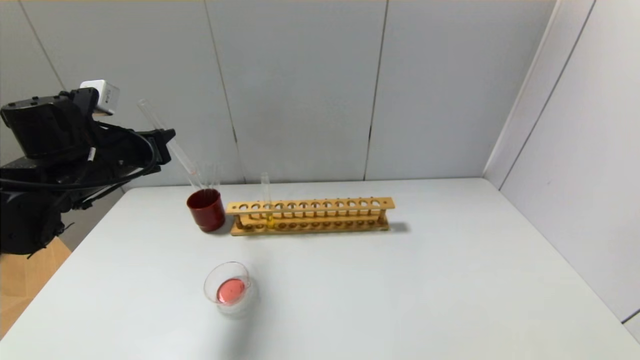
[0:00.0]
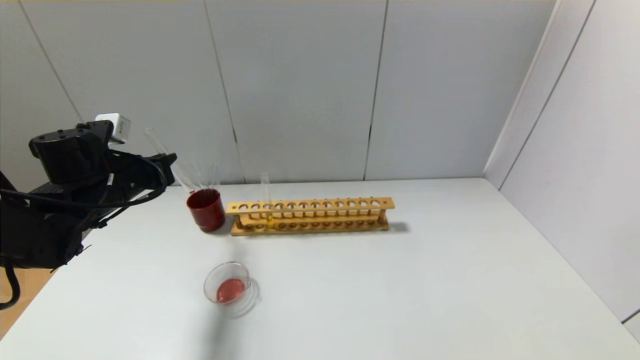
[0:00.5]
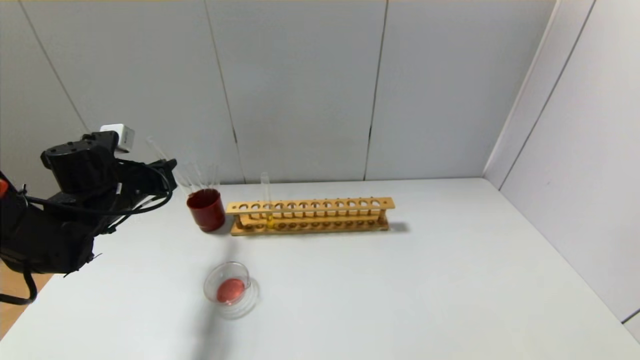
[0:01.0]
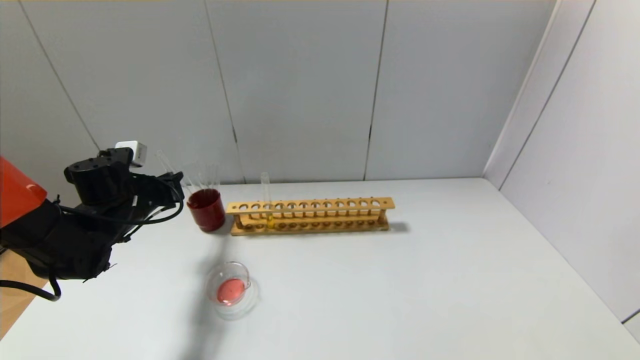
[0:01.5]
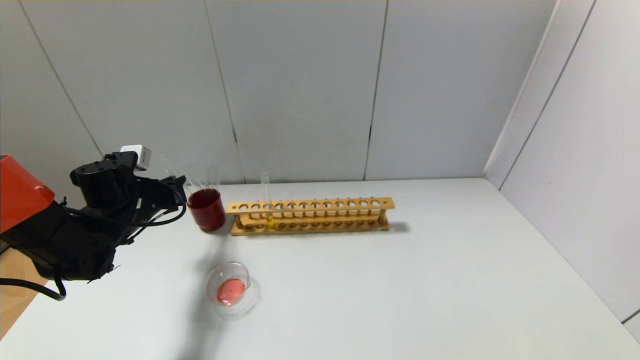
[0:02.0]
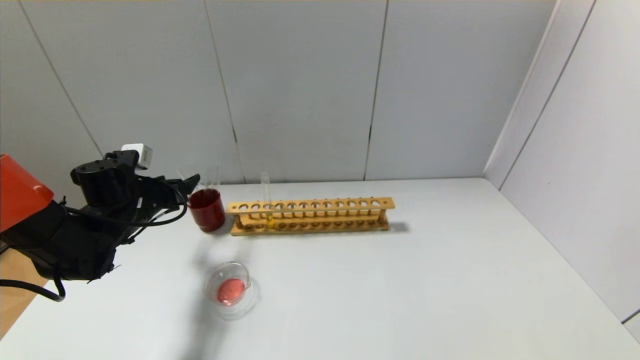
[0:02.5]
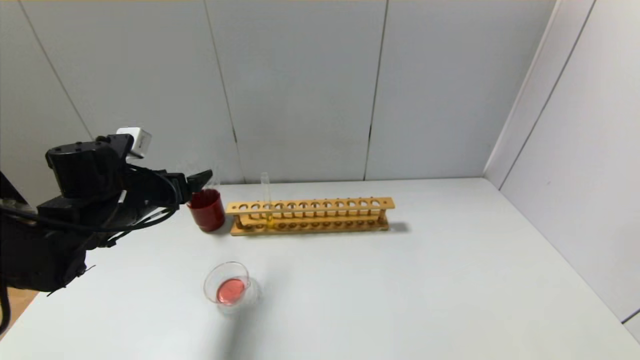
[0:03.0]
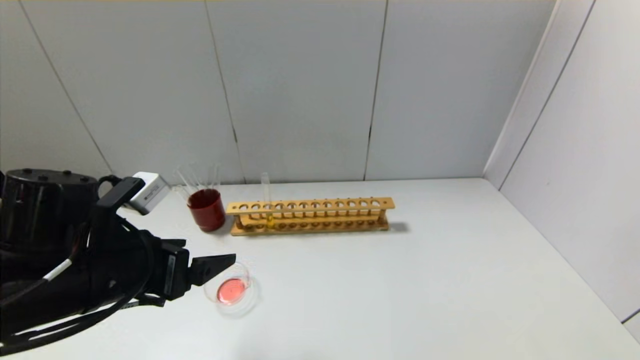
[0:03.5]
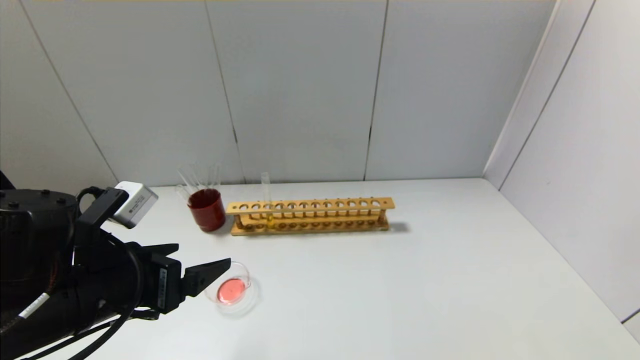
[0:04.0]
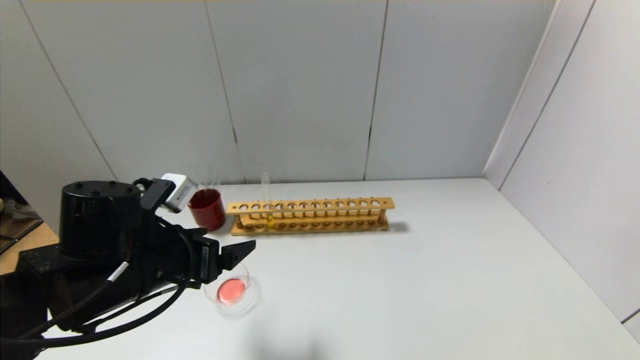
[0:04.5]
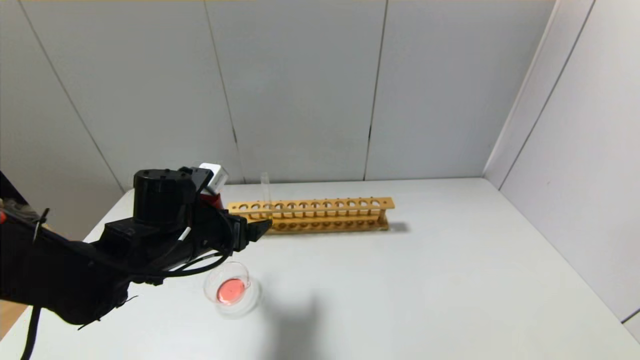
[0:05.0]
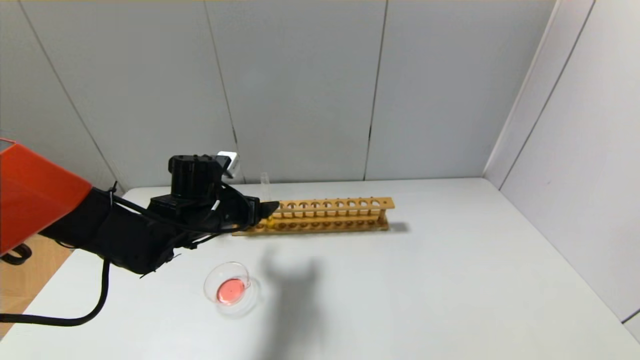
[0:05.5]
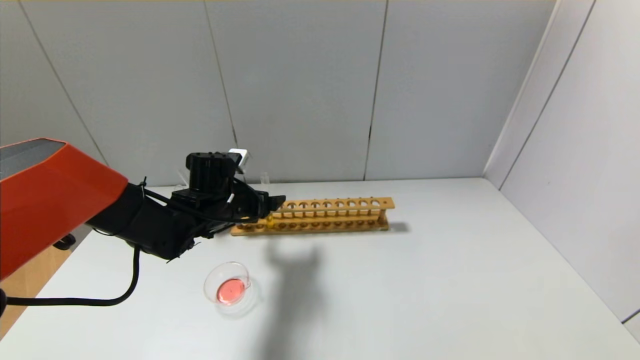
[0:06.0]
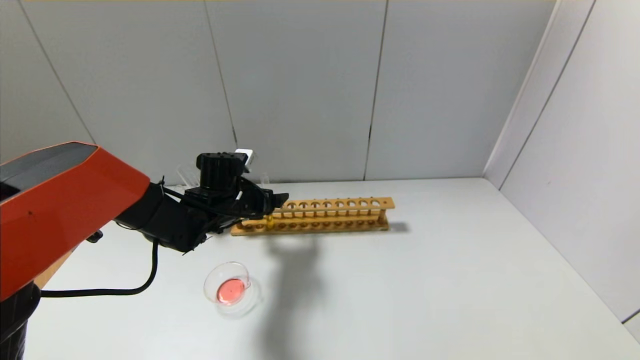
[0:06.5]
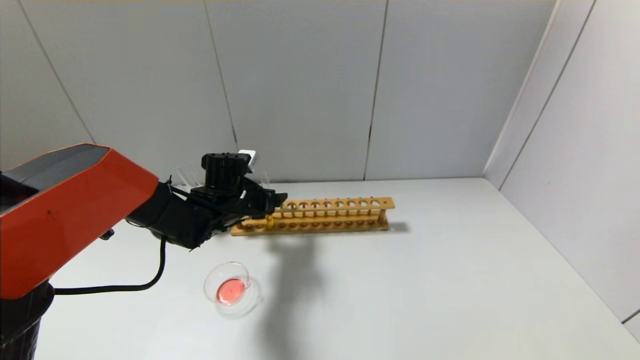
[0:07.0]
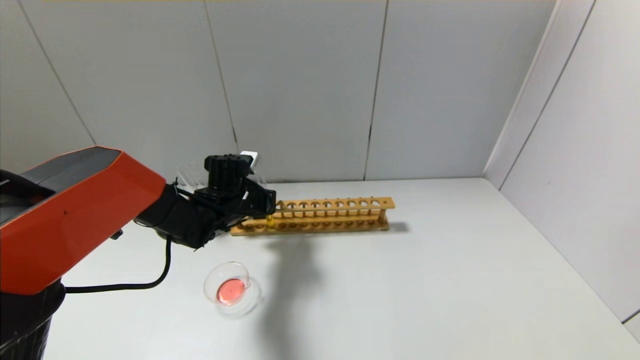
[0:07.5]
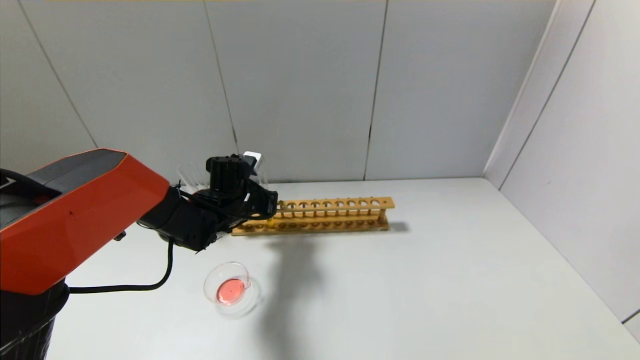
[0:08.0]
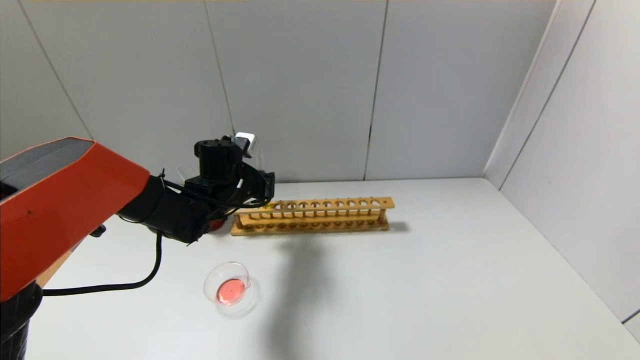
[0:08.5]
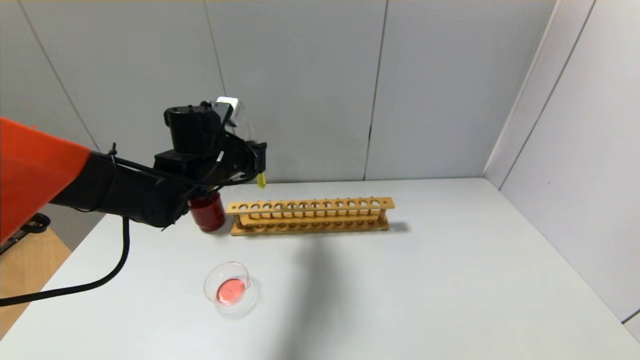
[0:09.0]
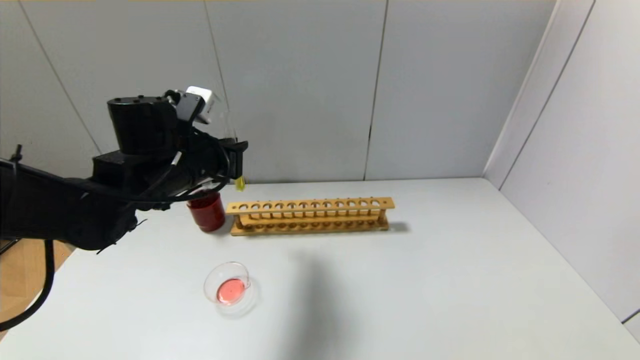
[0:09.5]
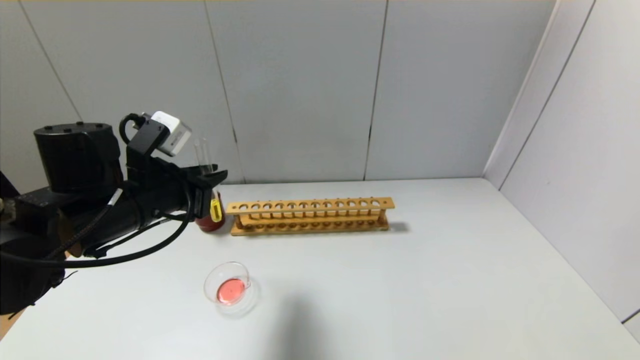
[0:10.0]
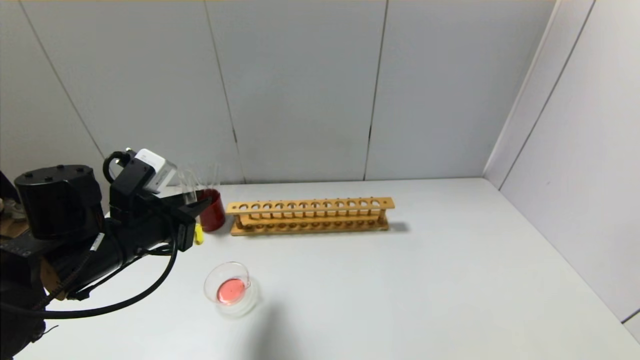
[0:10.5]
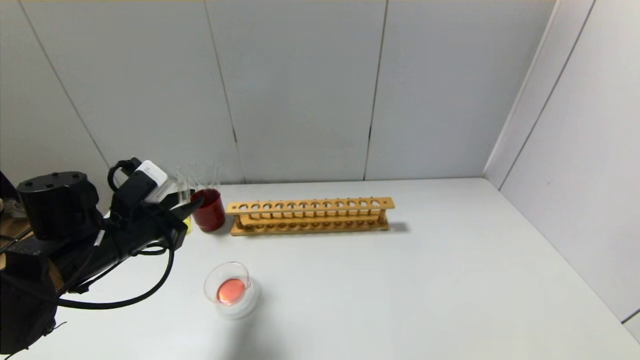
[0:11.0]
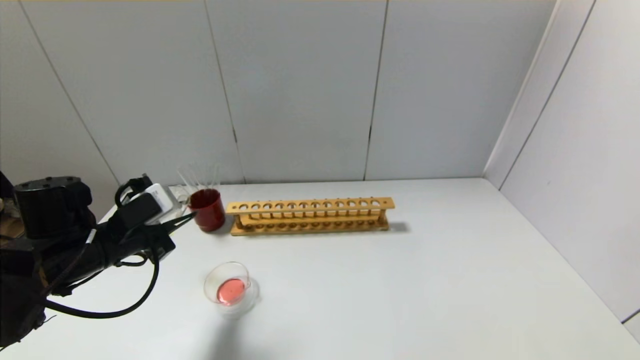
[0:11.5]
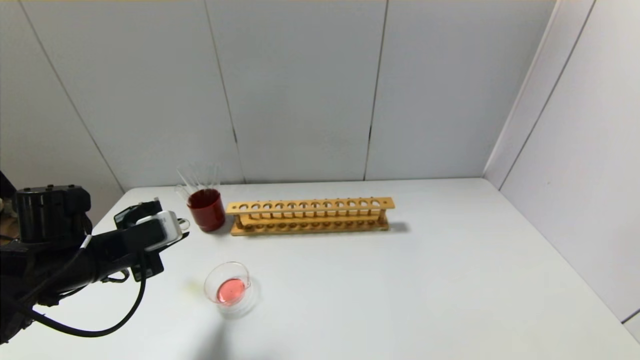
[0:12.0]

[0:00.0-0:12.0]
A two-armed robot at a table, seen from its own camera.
Step, 0.0 to 2.0 s: Place the test tube into the brown cup with the left gripper.
Step, 2.5 to 7.5 s: Grasp the yellow reagent with the left gripper.
0.0 to 2.0 s: The left gripper is displaced downward by approximately 10 cm.
2.0 to 4.0 s: The left gripper heads backward and to the right, covering about 20 cm, and opens up.
4.0 to 6.0 s: The left gripper travels forward by about 20 cm.
6.0 to 8.0 s: The left gripper closes up.
8.0 to 10.0 s: The left gripper travels backward, upward and to the left by about 20 cm.
10.0 to 12.0 s: The left gripper shifts some 10 cm downward and to the left.

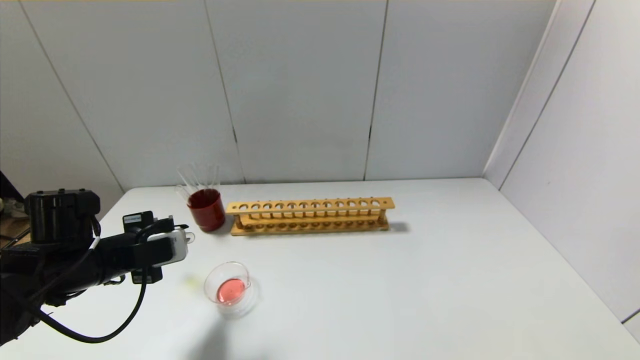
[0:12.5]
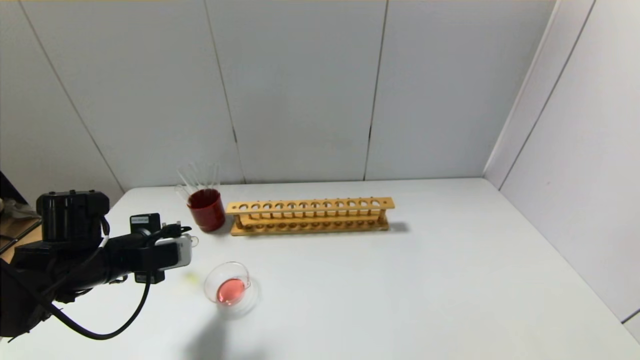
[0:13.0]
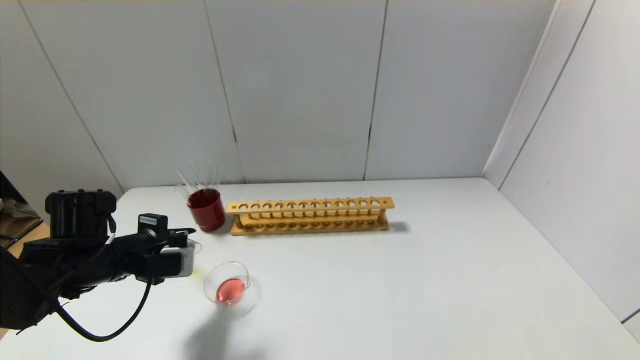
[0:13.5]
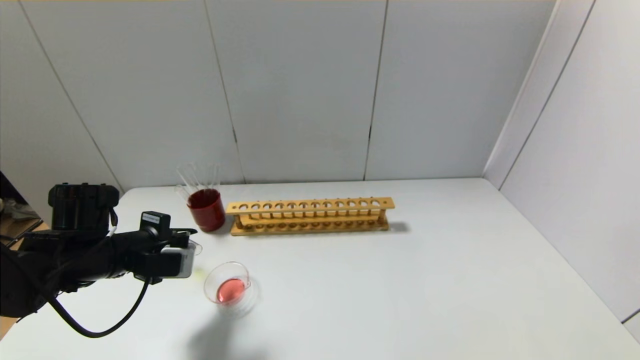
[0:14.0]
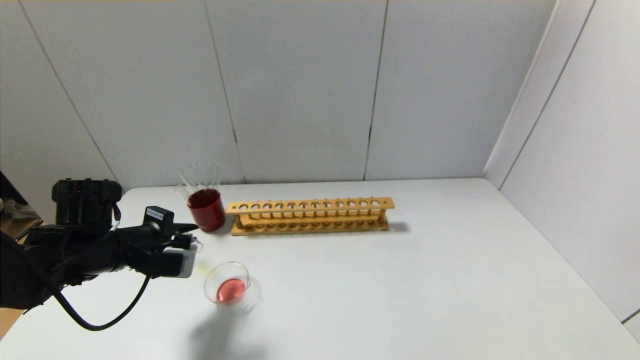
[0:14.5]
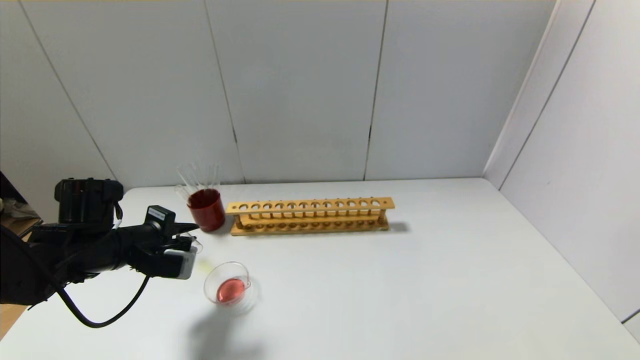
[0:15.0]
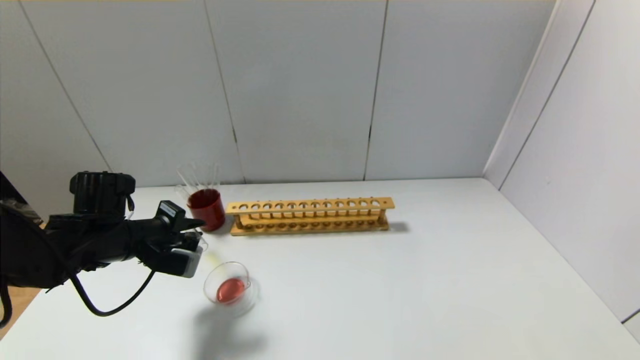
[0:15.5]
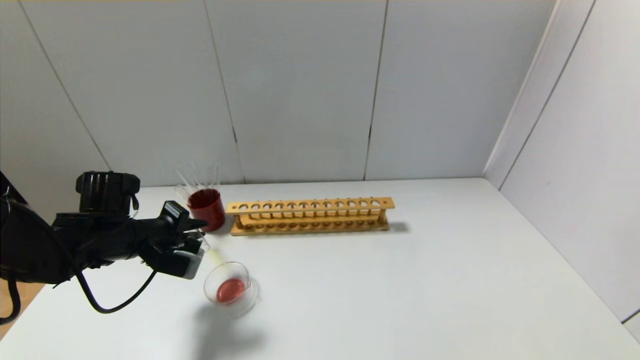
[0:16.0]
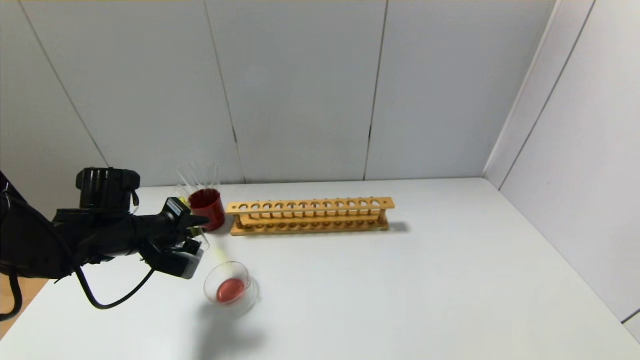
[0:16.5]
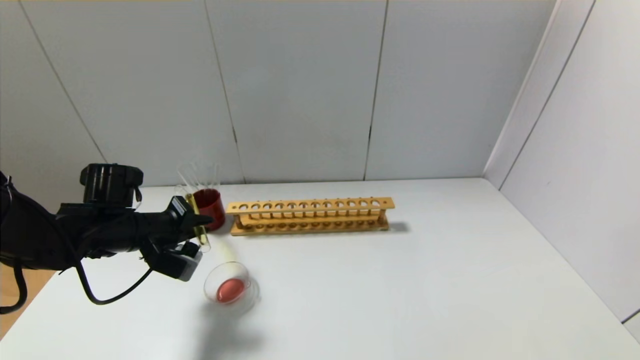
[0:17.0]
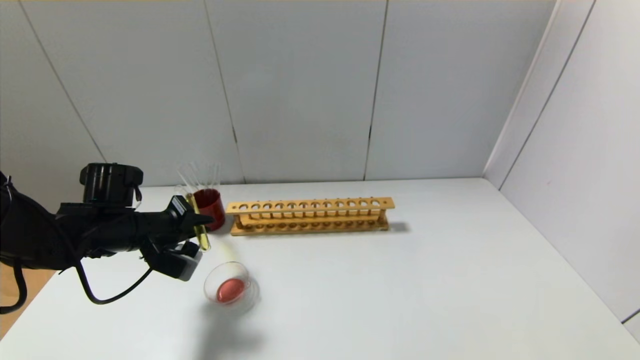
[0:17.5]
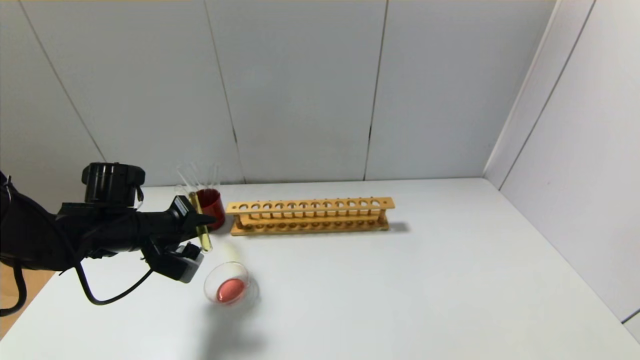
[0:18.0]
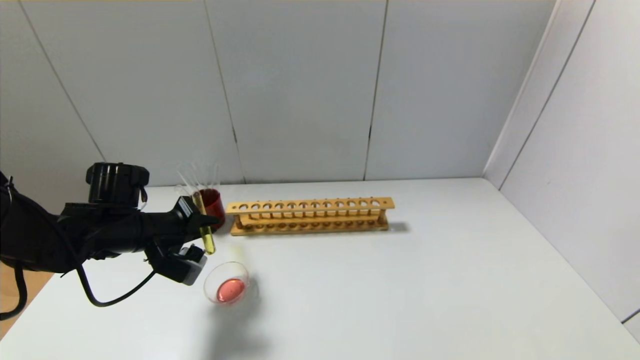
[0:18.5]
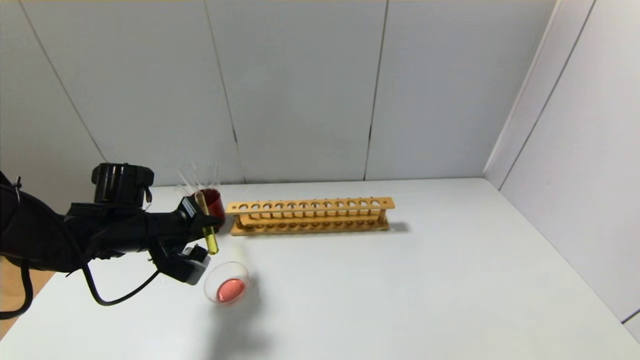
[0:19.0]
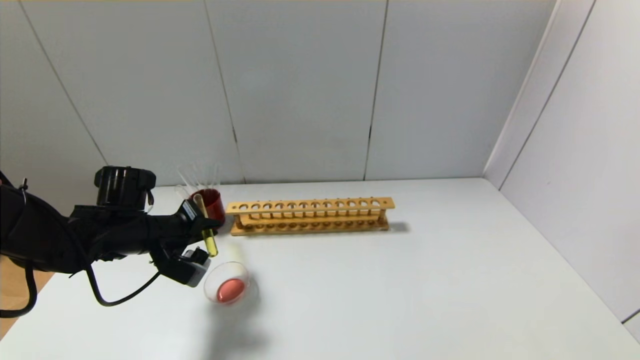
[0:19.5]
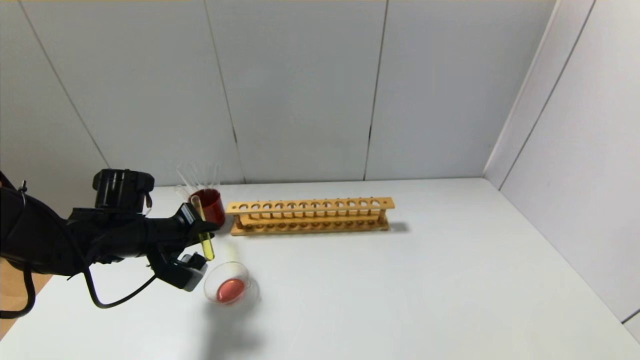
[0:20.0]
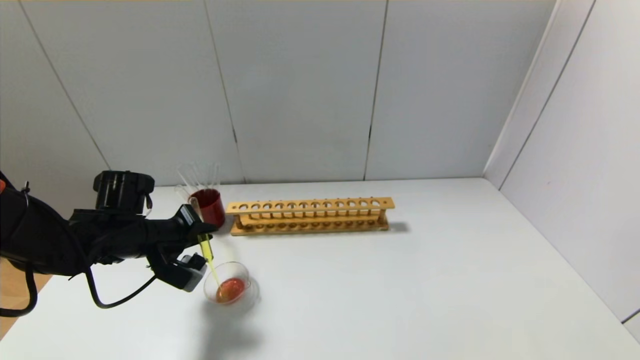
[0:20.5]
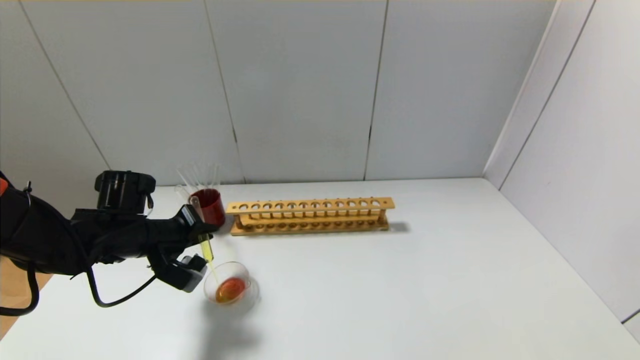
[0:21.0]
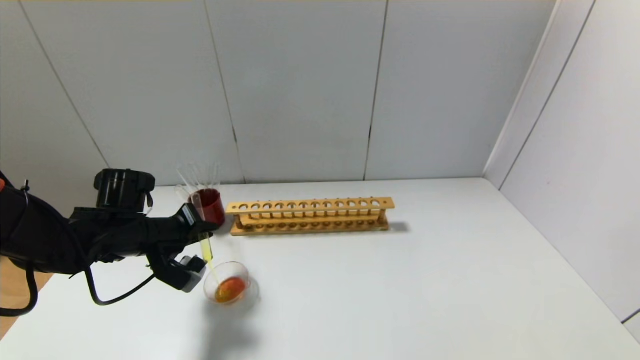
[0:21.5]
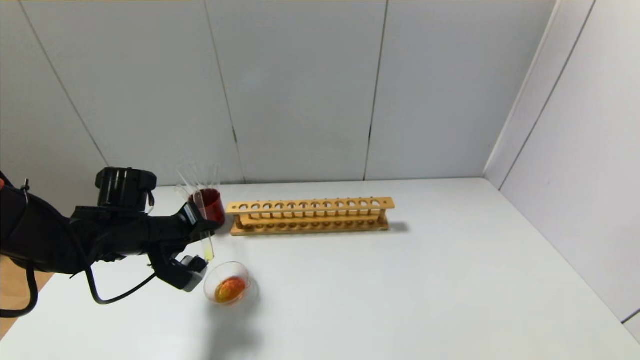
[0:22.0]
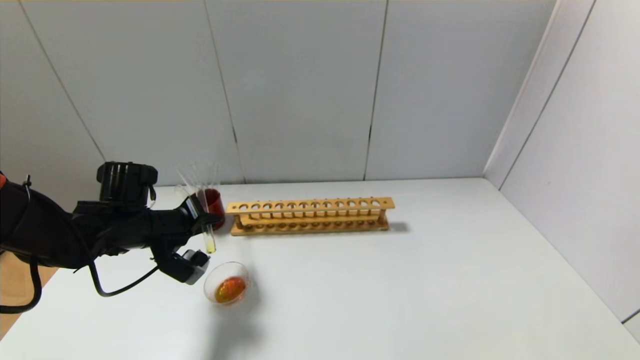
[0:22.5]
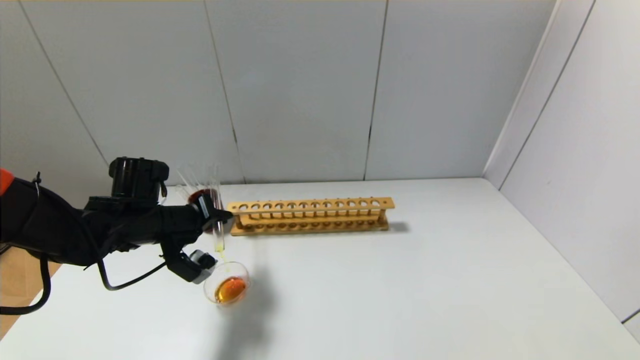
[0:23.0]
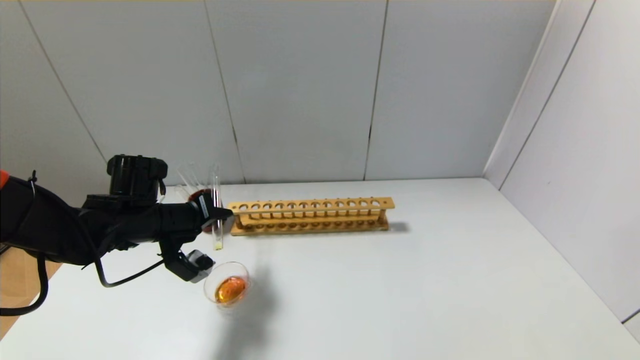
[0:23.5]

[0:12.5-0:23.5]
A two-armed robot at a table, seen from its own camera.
14.5 to 16.0 s: There are only small adjustments of the grippers.
16.0 to 18.0 s: The grippers stay close to where they were, moving slightly.
18.0 to 20.0 s: The two grippers keep their place.
20.0 to 21.5 s: Both grippers stay put.
21.5 to 23.5 s: The grippers make only small movements.
